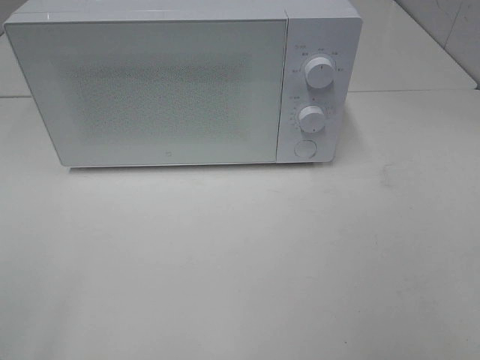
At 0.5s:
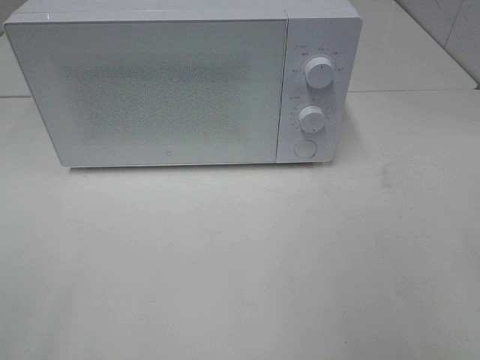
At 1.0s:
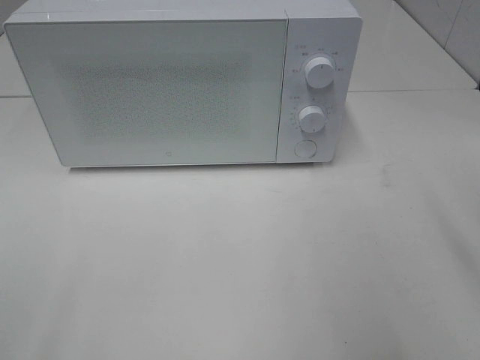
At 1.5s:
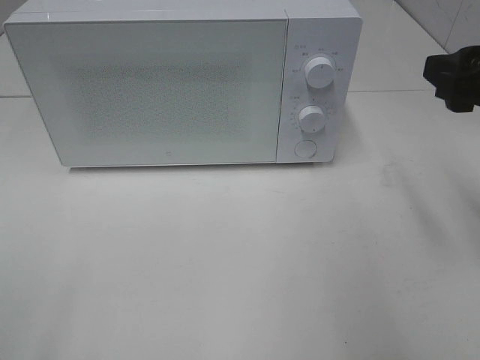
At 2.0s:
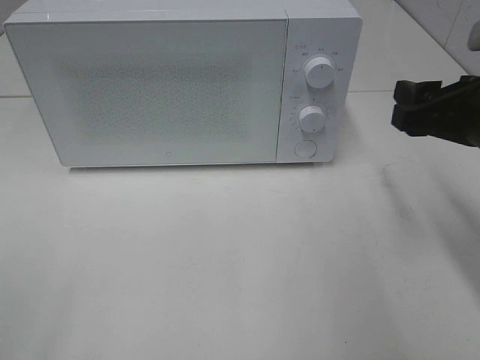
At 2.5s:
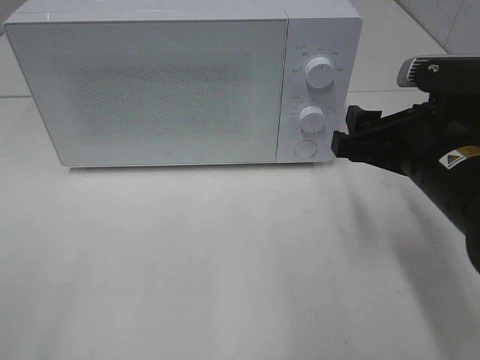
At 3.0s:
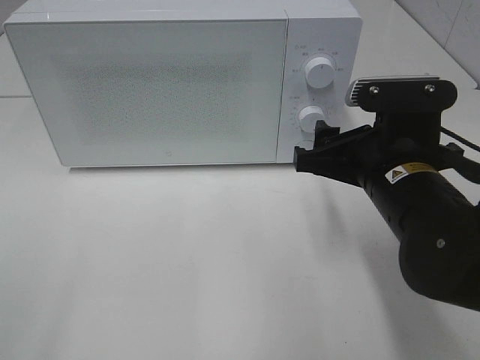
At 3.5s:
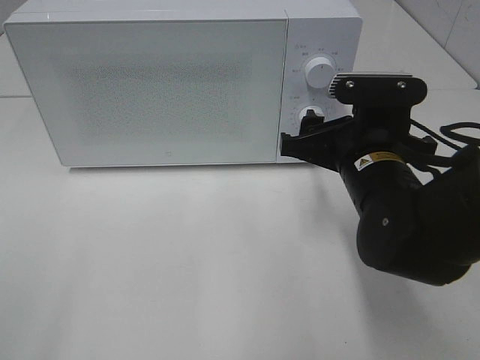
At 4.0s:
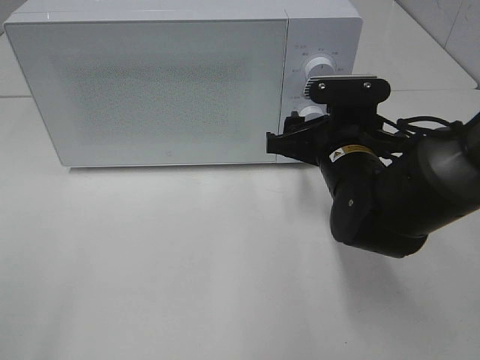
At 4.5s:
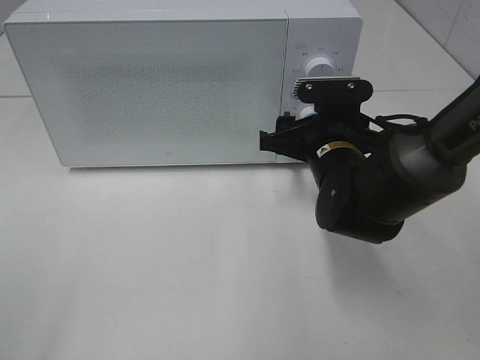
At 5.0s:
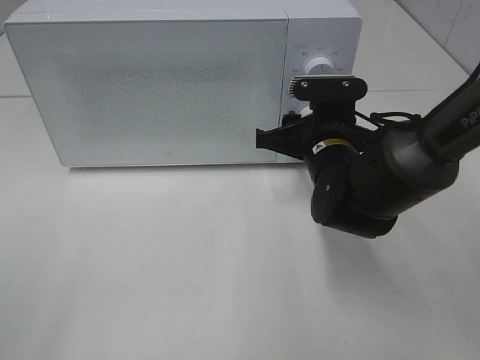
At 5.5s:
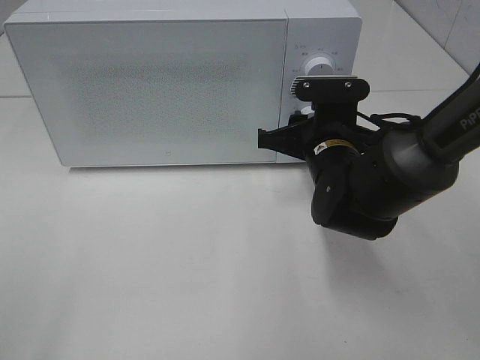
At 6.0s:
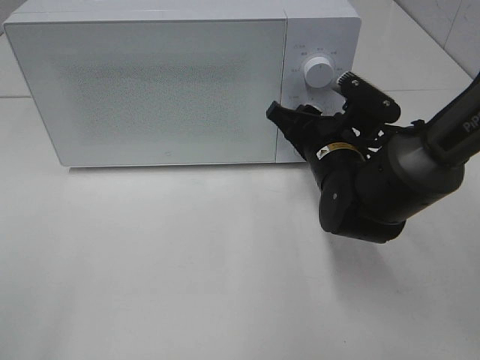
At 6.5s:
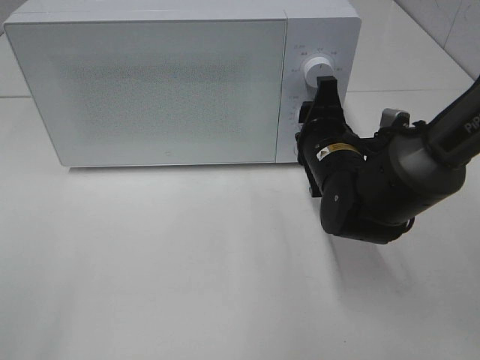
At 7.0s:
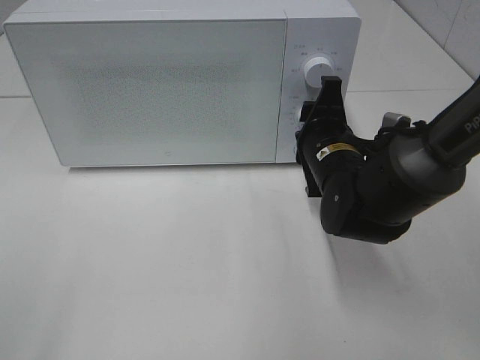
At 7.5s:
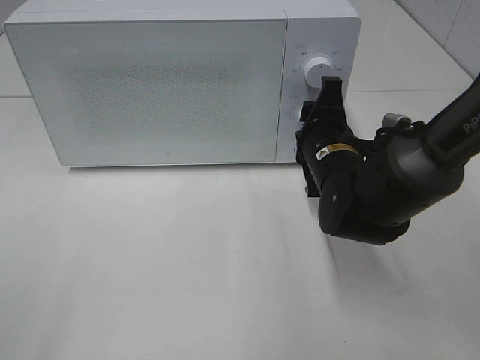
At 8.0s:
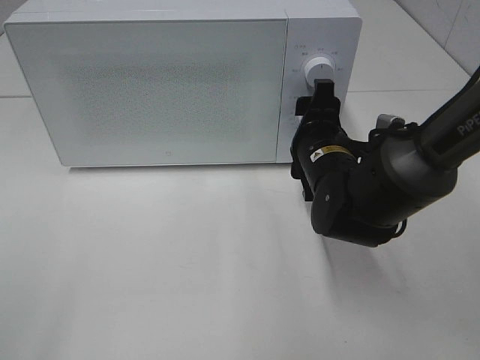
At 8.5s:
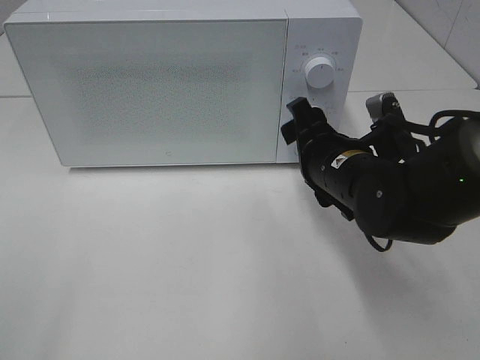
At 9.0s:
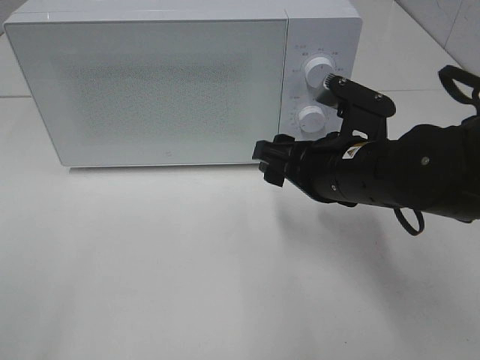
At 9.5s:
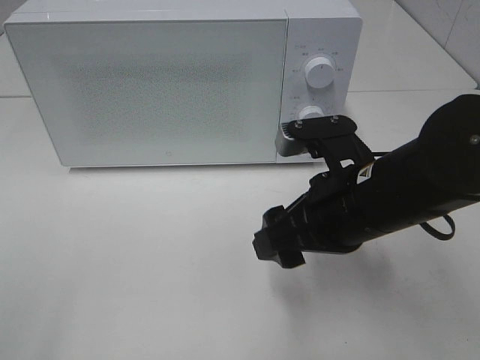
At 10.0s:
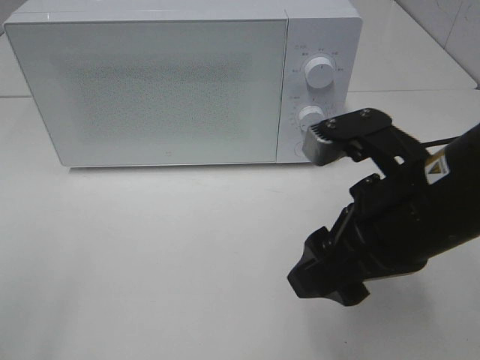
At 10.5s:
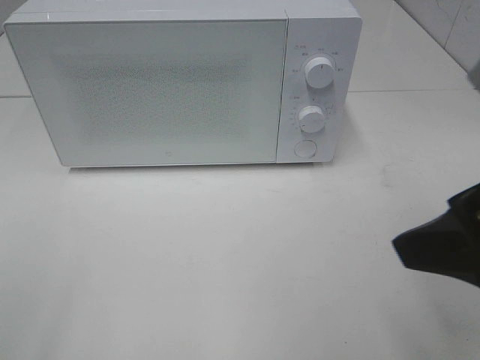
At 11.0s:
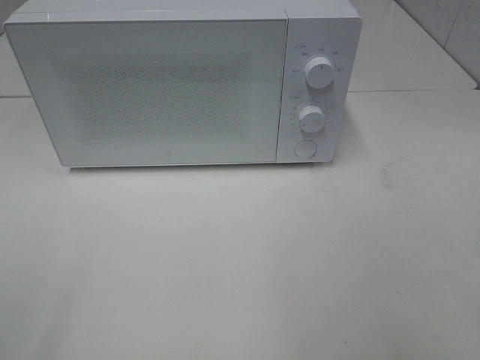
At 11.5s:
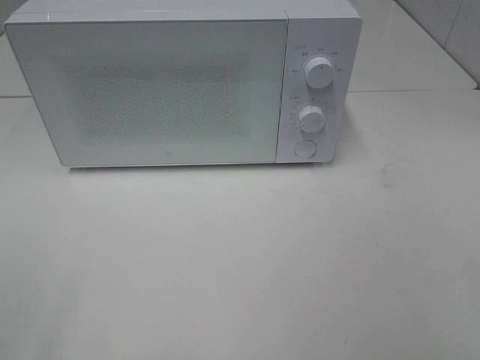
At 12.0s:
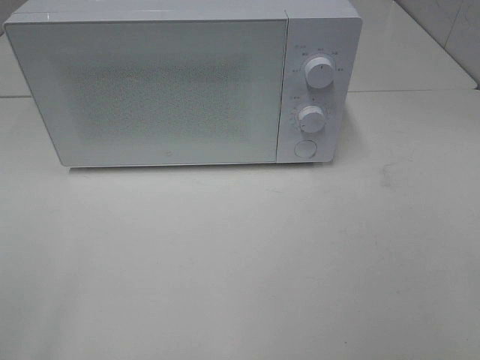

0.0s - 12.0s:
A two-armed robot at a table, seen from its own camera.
Task of the whole recording: Heat the burger.
Step, 0.0s - 7.5s: Right hand: twist timer button.
0.0s - 2.0s: The right gripper goes roughly 20 cm forward.
2.0s - 4.0s: The right gripper goes roughly 15 cm to the left, downward and forward.
4.0s - 6.0s: The right gripper closes up.
8.0s - 10.0s: The right gripper moves backward and upward, some 20 cm.
10.0s - 12.0s: The right gripper goes about 25 cm backward and to the right.

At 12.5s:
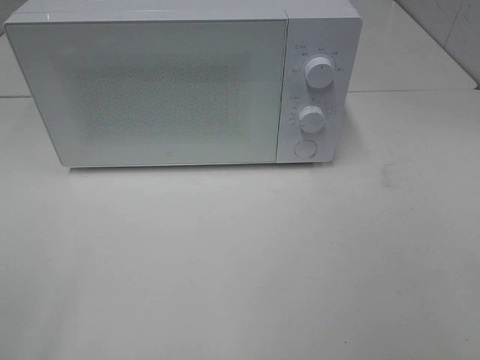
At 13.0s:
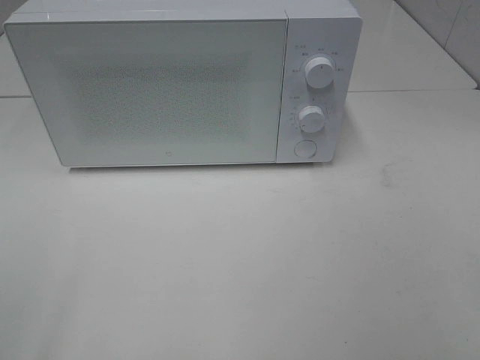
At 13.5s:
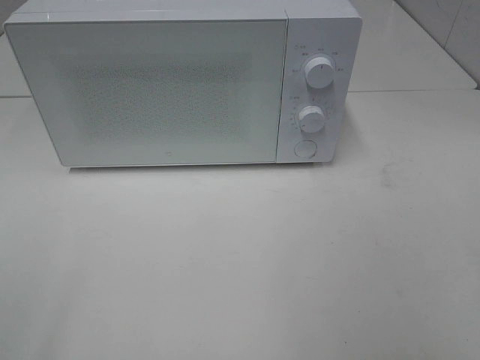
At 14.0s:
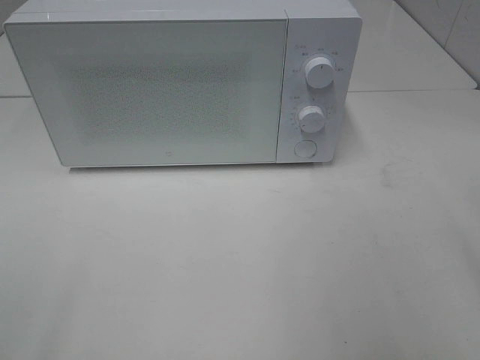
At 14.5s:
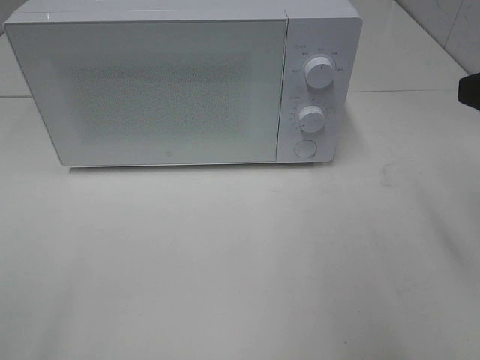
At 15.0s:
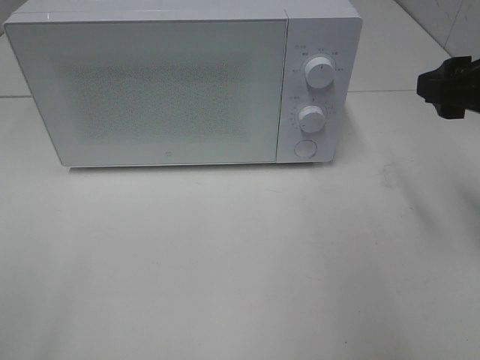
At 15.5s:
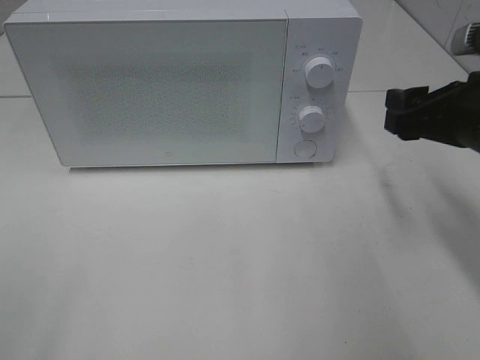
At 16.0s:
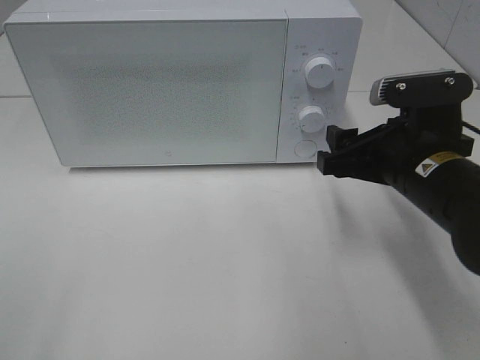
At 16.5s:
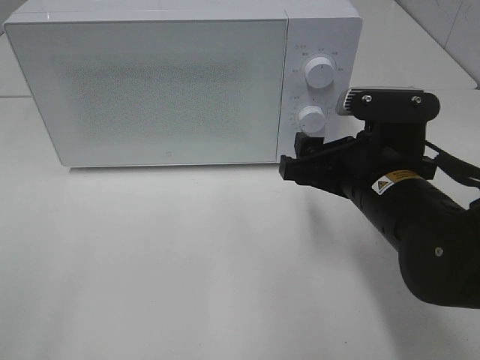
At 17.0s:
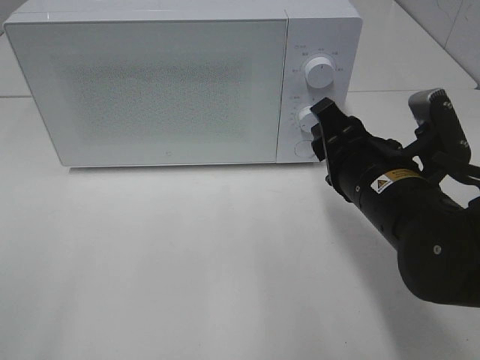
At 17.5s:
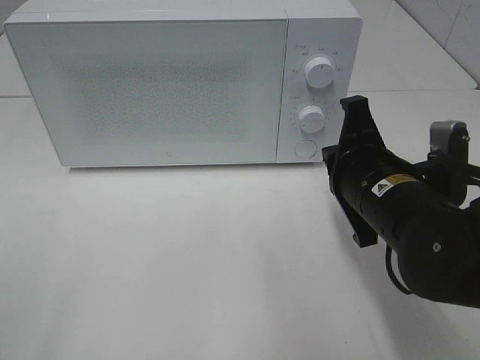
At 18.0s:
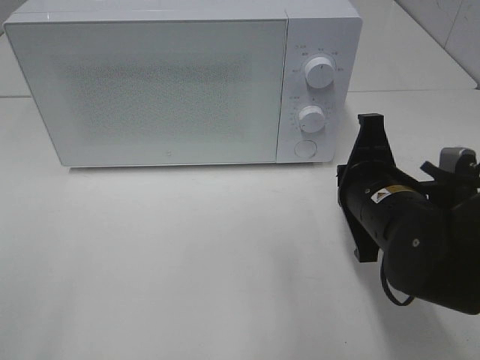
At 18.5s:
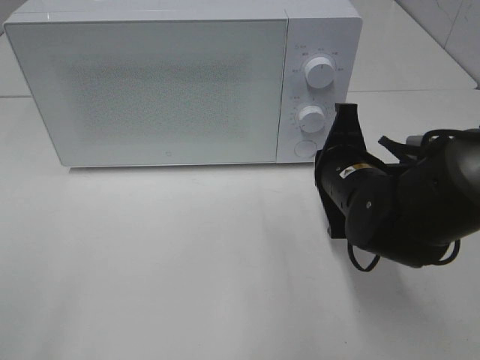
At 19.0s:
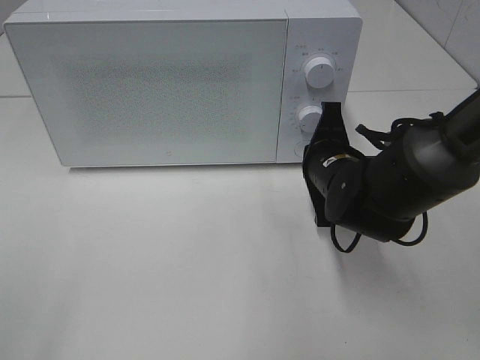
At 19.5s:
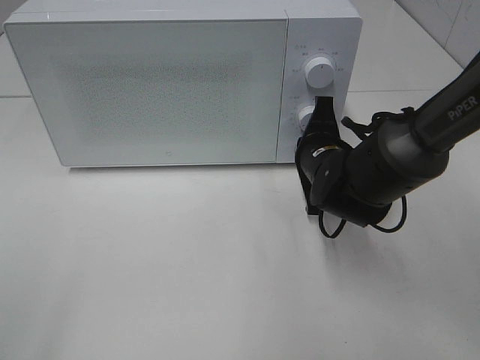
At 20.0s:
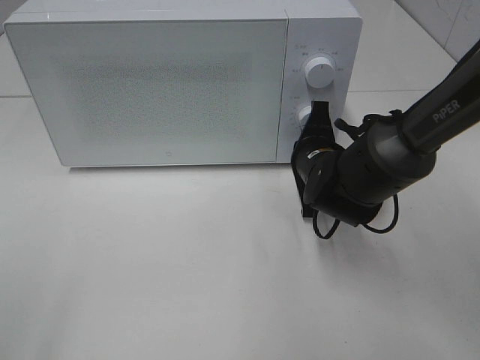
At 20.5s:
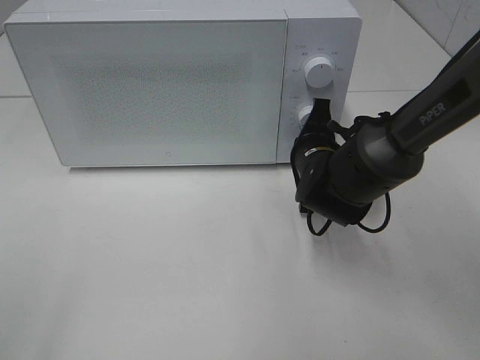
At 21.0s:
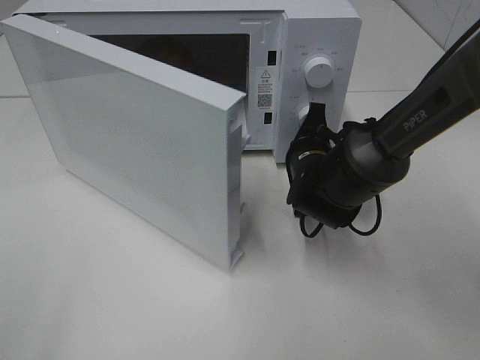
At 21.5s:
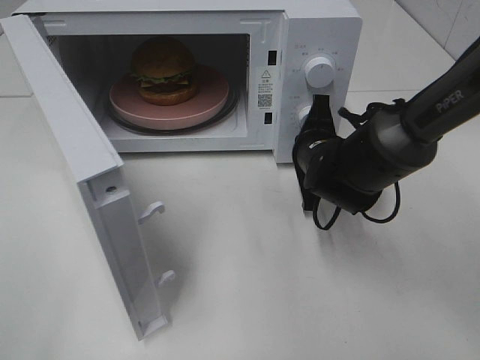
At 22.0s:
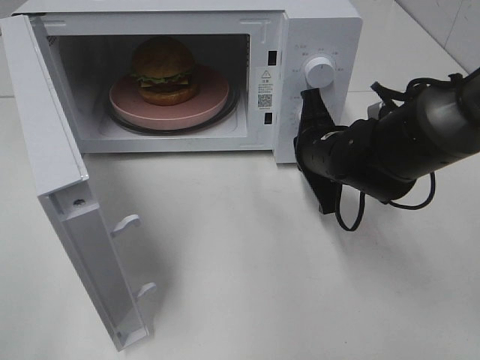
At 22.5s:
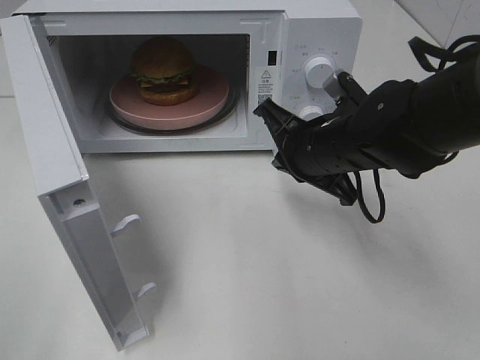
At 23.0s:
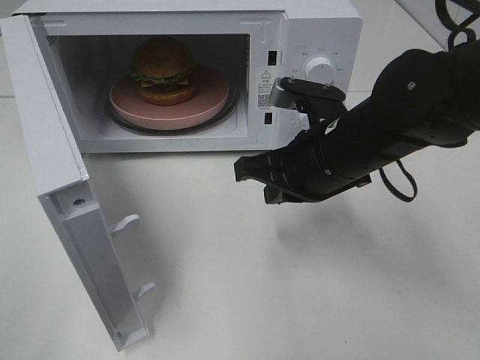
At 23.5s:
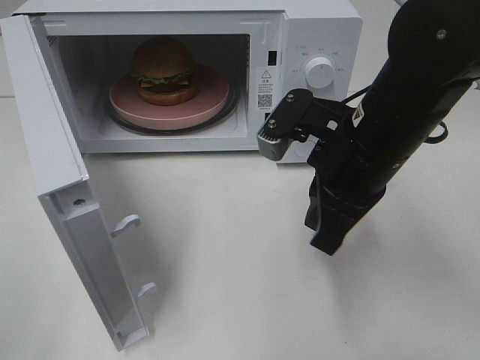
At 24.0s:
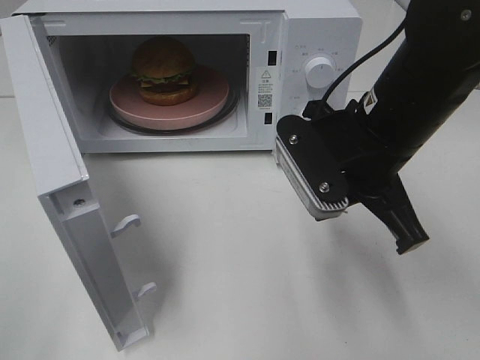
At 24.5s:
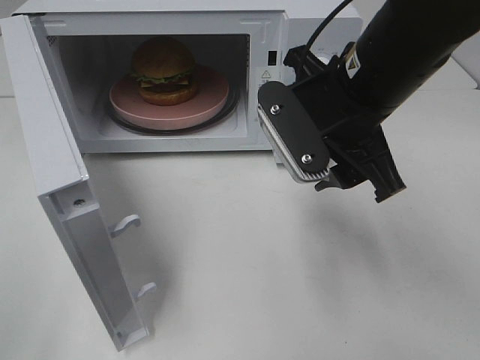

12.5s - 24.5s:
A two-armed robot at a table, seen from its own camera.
Task of the whole recording: Heat the burger.
Step, 12.5s - 21.5s: Right hand: press the switch.
14.5s - 16.5s: The right gripper heads downward and to the left, covering approximately 20 cm.
16.5s - 18.5s: The right gripper ends up roughly 5 cm from where it was, and closes its fingers.
18.5s - 20.5s: The right gripper is displaced forward by some 10 cm.
20.5s - 22.5s: The right gripper travels upward by roughly 5 cm.
22.5s - 24.5s: The right gripper is displaced upward by approximately 10 cm, and opens.

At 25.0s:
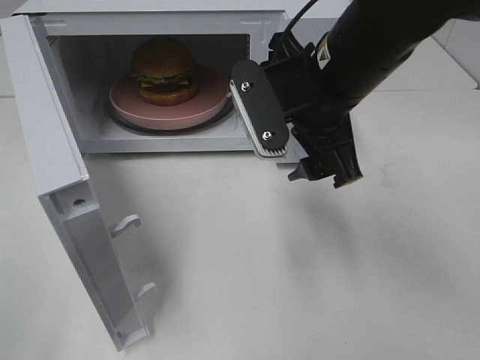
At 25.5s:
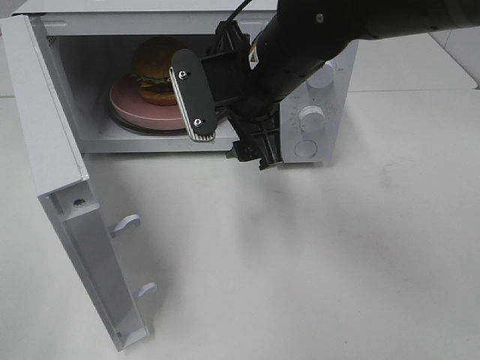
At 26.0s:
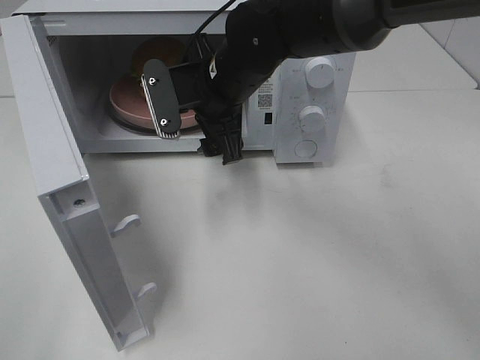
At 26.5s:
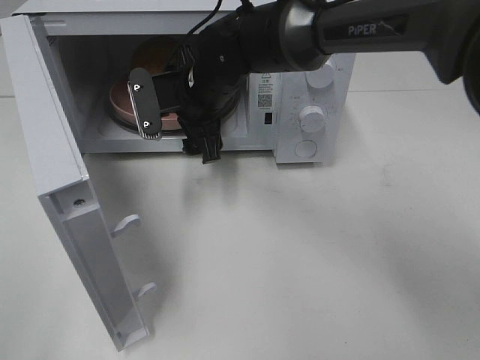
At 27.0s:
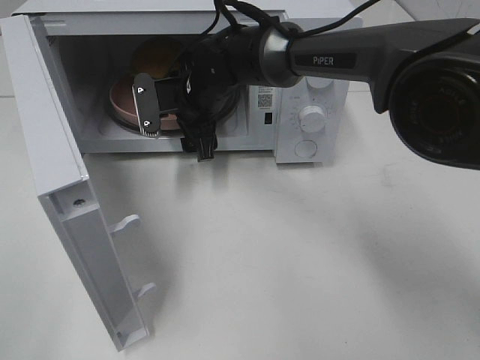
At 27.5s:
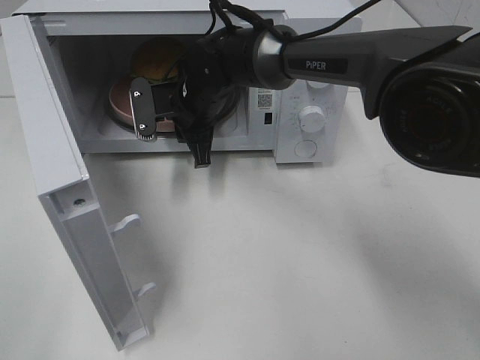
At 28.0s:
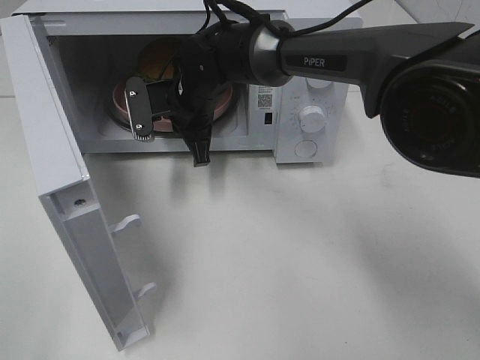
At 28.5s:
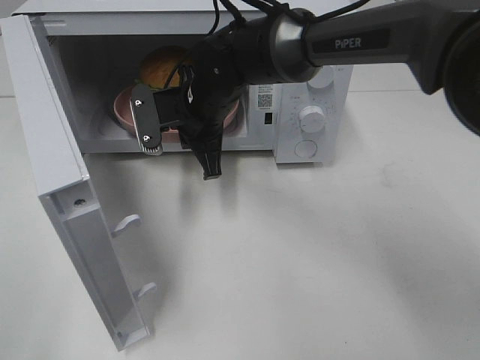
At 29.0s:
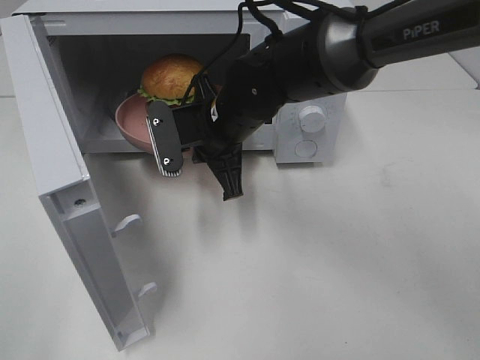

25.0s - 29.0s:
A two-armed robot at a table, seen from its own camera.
Task of the whole recording: Heat the burger.
Step, 25.0s - 27.5s: Right hand: grab the plate with the hamburger.
25.0s - 27.0s: The right gripper heads forward, to the left and downward, covering about 20 cm.
27.0s - 29.0s: The right gripper heads backward, covering some 10 cm, and closes up.
